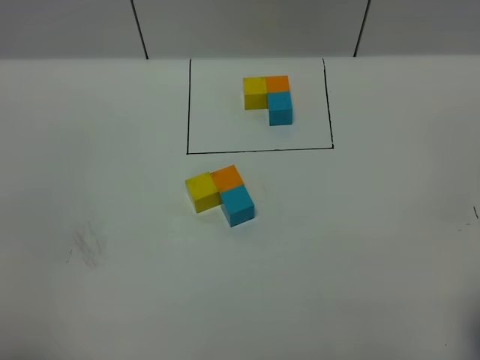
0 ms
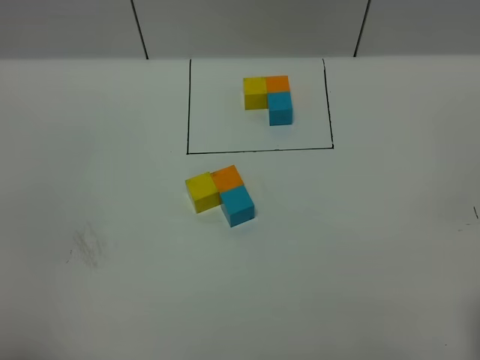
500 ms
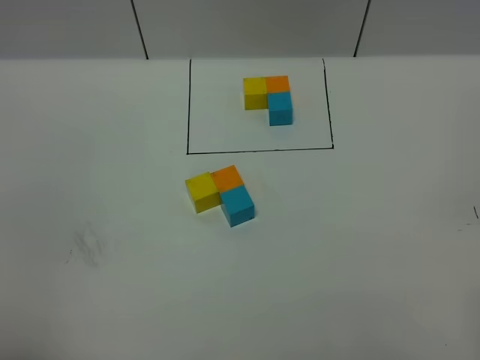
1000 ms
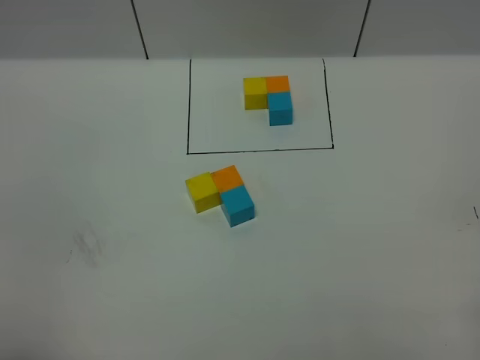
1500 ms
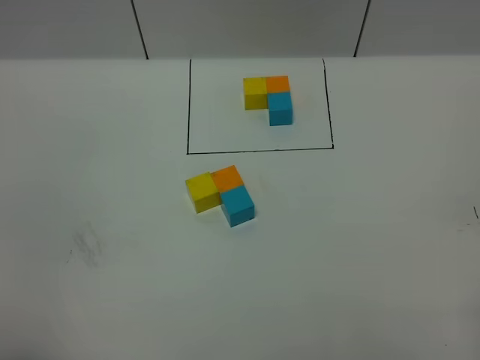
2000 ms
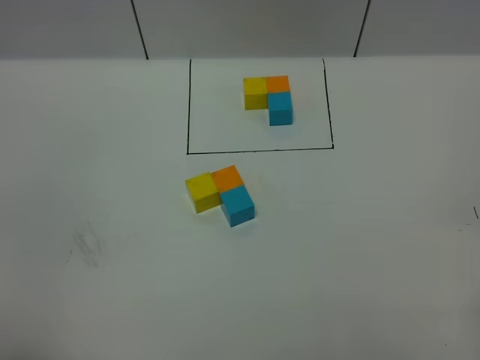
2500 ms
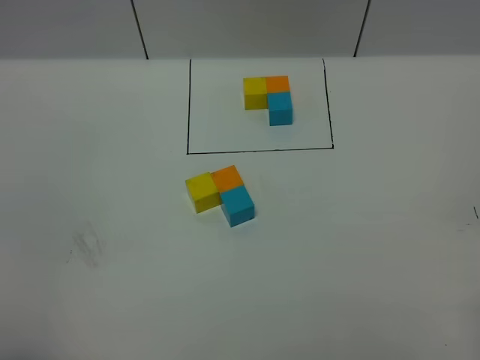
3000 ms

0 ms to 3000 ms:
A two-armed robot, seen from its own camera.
Task of the whole recording: According to the building block template in front, assemble the scattered blocks together.
1500 ms to 3000 ms: The two grippers keep their place.

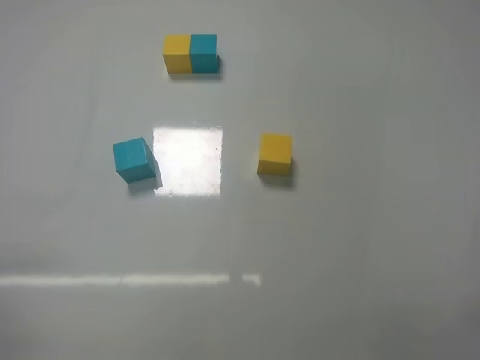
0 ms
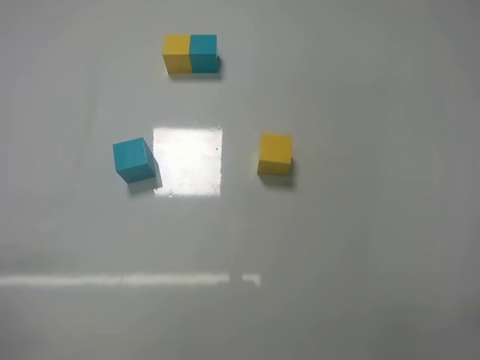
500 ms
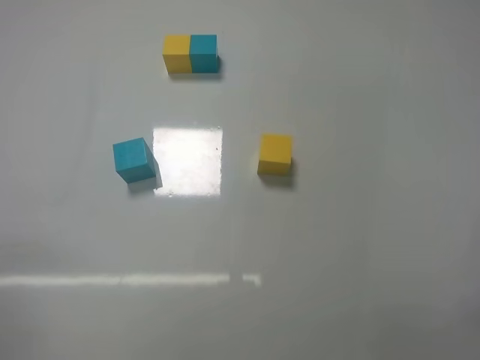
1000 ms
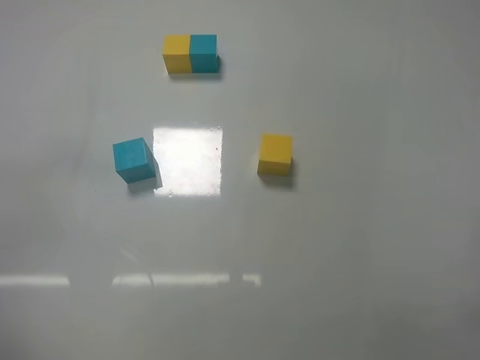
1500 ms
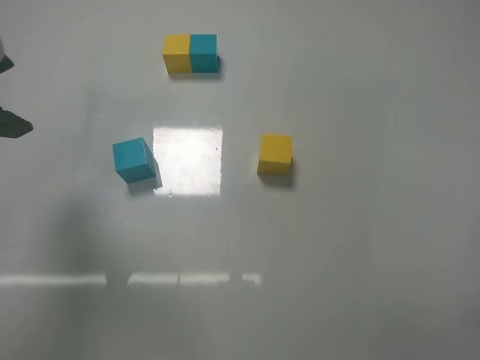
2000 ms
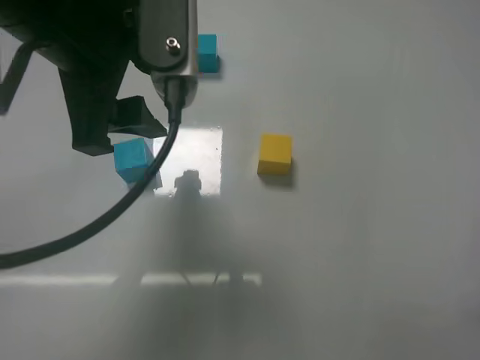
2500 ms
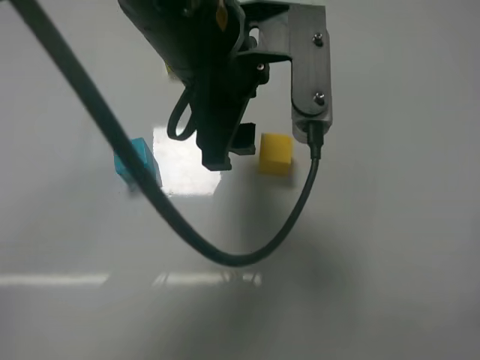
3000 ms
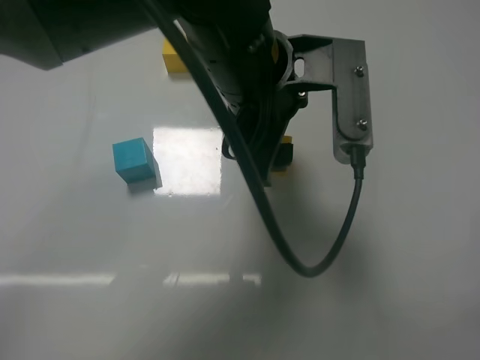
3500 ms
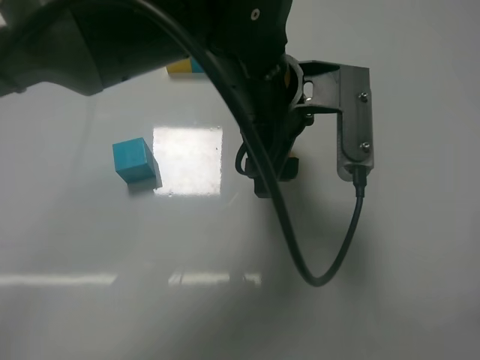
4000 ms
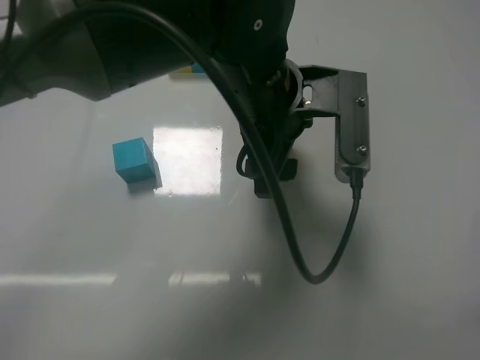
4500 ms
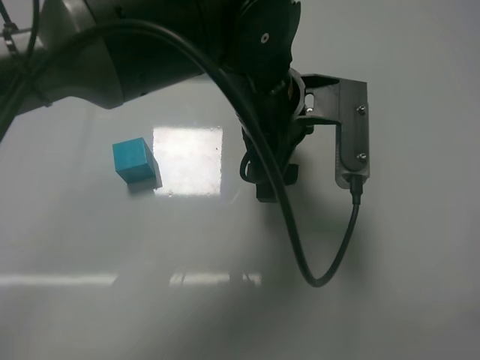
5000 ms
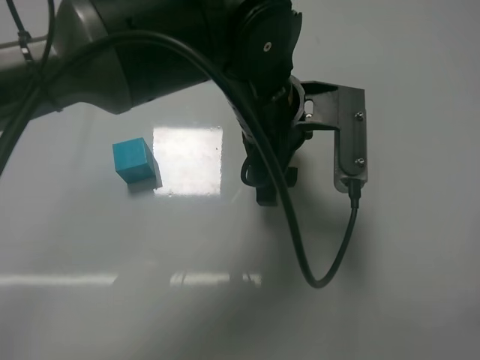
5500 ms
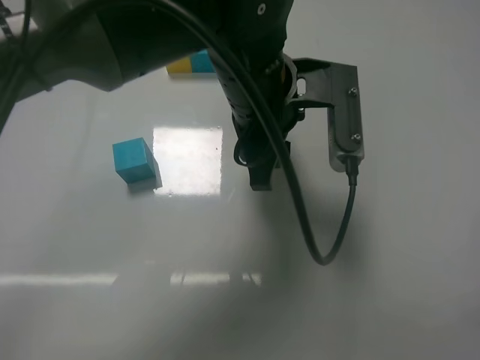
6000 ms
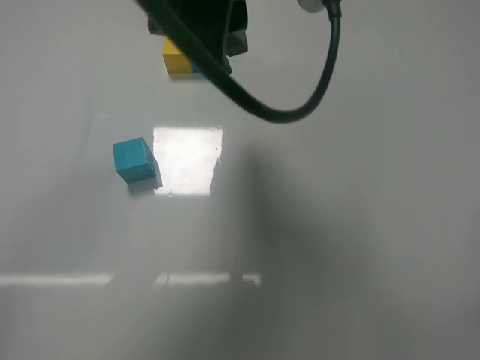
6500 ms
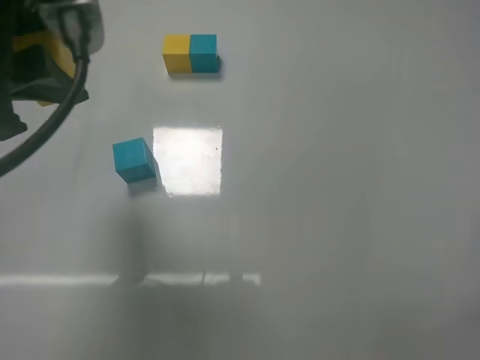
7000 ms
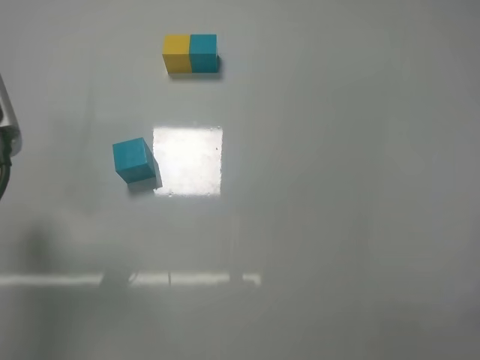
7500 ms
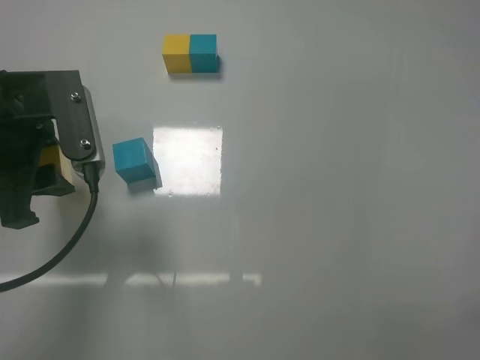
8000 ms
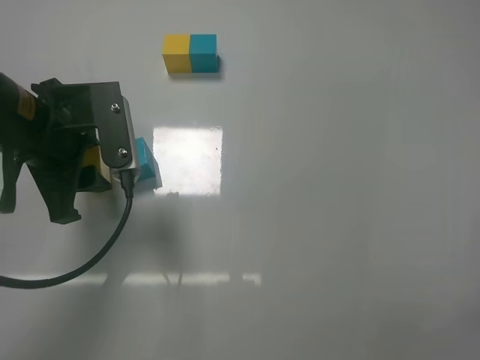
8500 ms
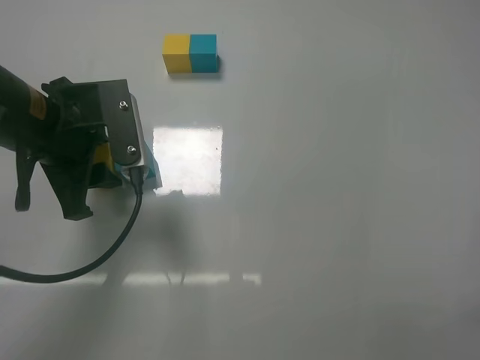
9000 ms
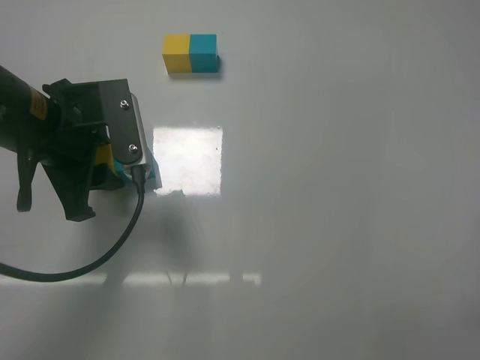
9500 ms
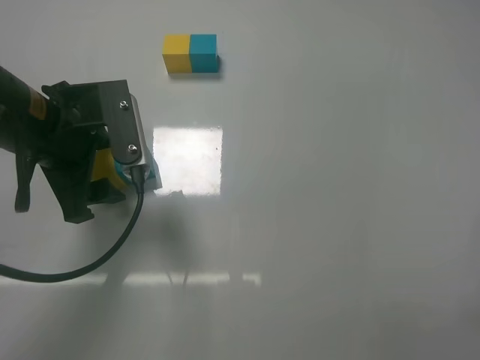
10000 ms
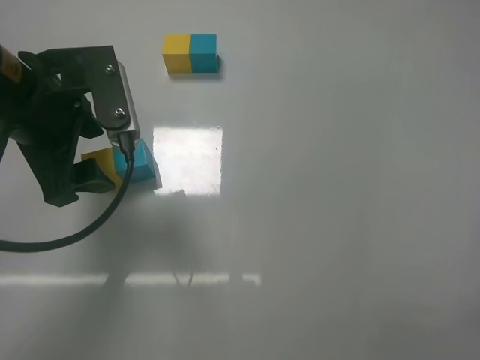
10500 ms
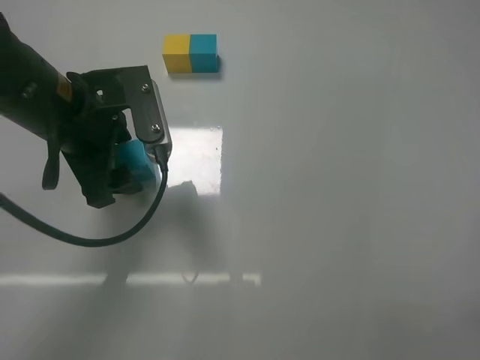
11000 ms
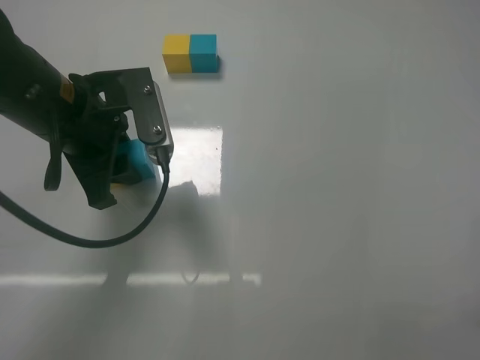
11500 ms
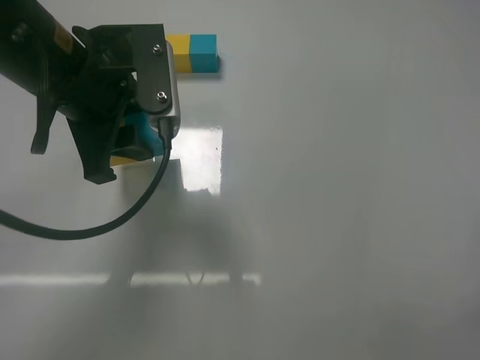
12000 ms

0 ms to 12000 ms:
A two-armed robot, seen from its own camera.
Task of the whole recording: According to the building block template in front, assemble the scattered blocks together.
Step, 0 ms to 5500 ms: Grasp the yellow block with left gripper.
Step, 6000 ms to 10000 ms: Put the yellow cube on the left of the blue cube with the left gripper.
0 ms to 2000 ms: The left gripper moves forward, upward and to the right, roughly 30 cm.
2000 ms to 4000 ms: The left gripper travels to the right by roughly 25 cm.
4000 ms to 6000 ms: The left gripper closes up.
6000 ms to 8000 ms: The left gripper travels to the left by roughly 25 cm.
8000 ms to 10000 ms: The left gripper opens.
10000 ms to 12000 ms: The left gripper moves upward, roughly 5 cm, and closes up.

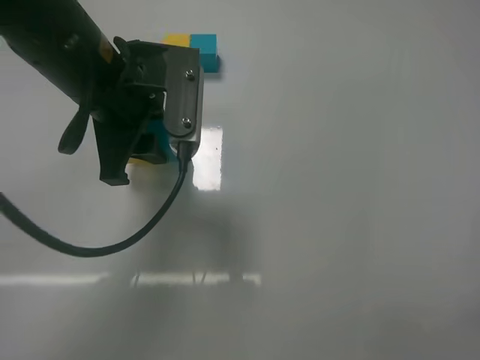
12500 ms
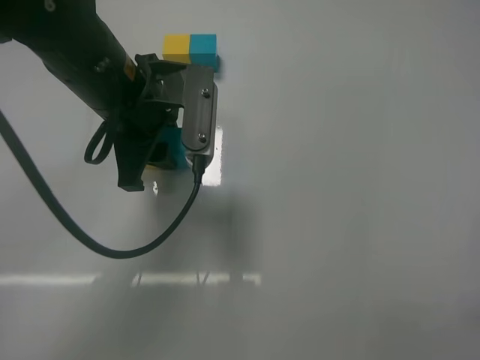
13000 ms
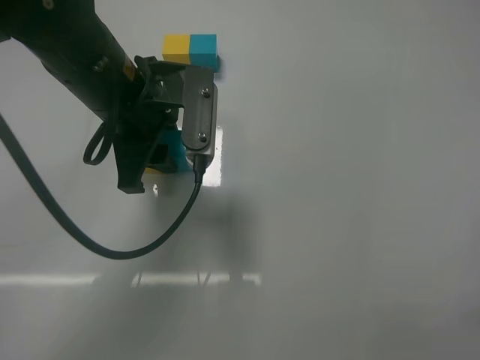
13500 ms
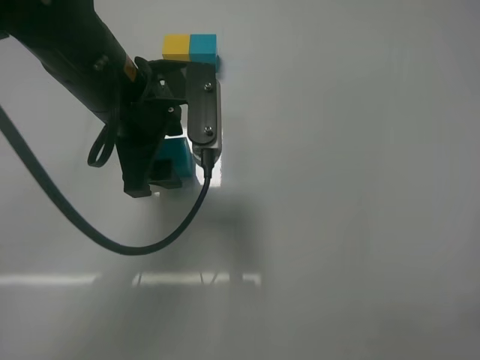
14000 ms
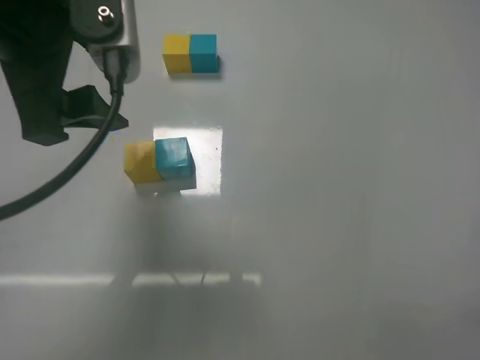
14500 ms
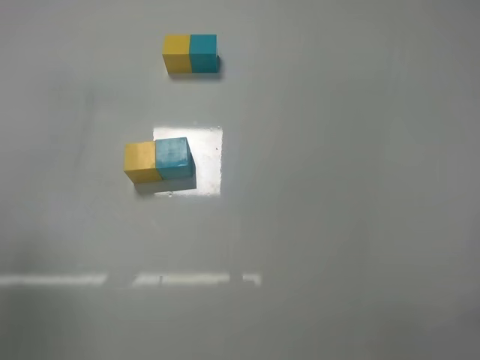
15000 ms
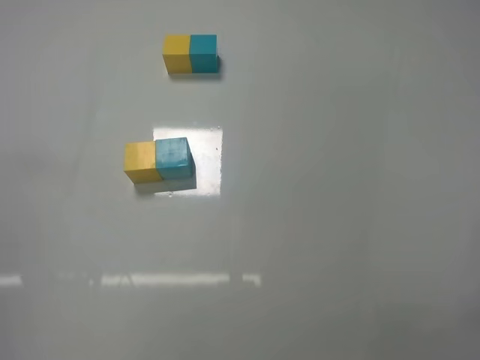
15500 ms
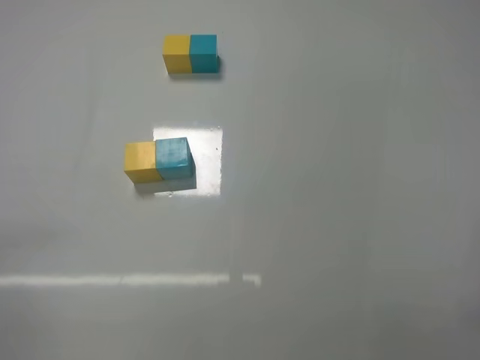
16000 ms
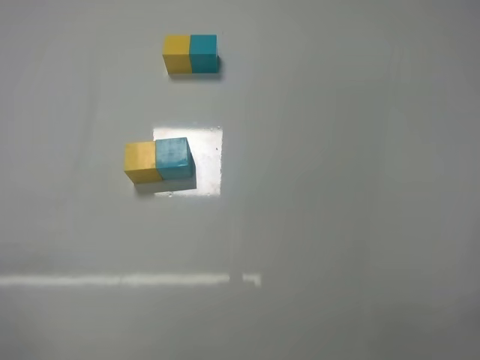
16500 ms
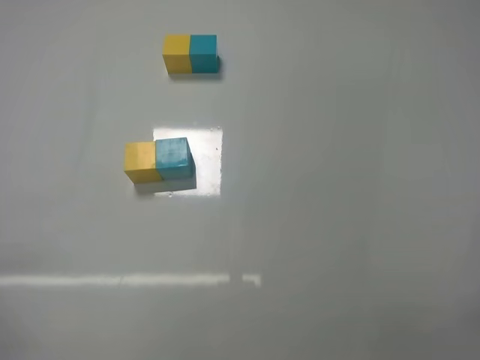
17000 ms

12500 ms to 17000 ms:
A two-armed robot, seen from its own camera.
Task of the whole recording: According to the building block template in front, assemble the scattered blocks together.
12500 ms to 14500 ms: The left gripper shifts some 10 cm upward, backward and to the left, and opens.
14500 ms to 17000 ms: The left gripper travels backward, downward and to the left by approximately 30 cm.
